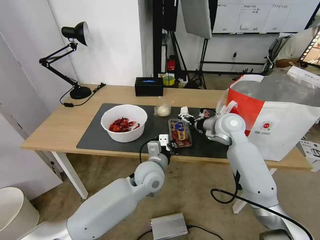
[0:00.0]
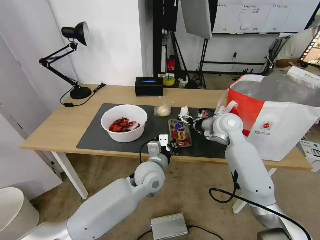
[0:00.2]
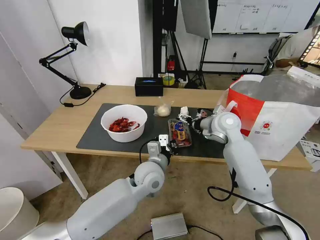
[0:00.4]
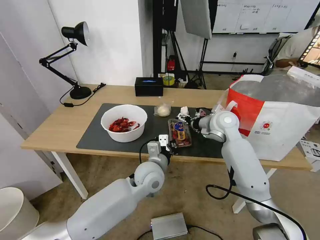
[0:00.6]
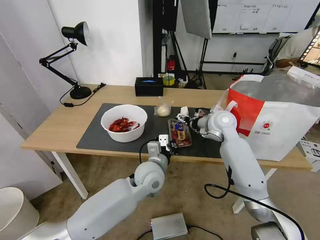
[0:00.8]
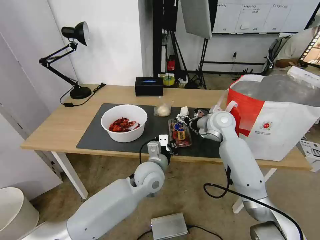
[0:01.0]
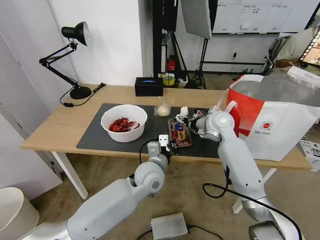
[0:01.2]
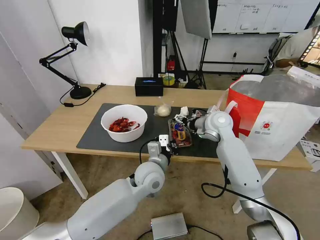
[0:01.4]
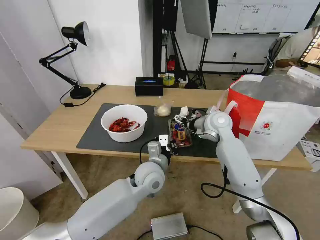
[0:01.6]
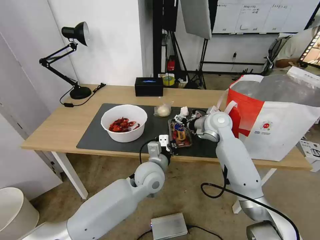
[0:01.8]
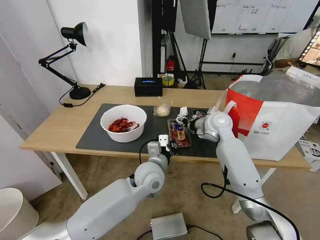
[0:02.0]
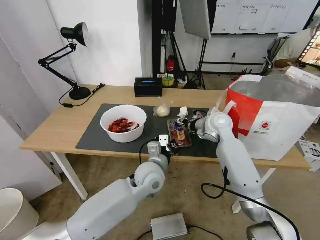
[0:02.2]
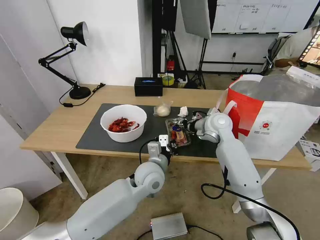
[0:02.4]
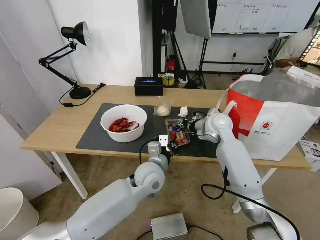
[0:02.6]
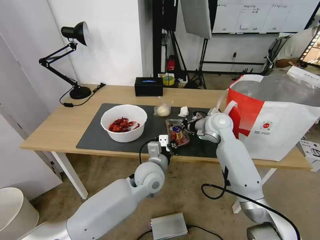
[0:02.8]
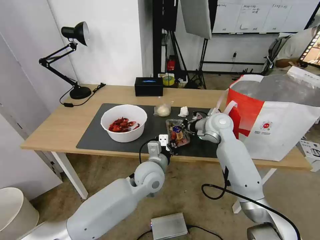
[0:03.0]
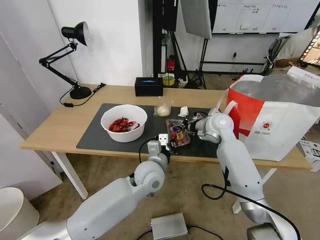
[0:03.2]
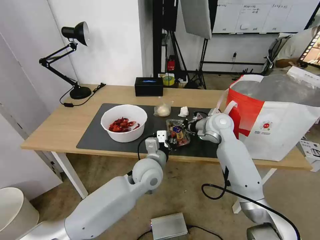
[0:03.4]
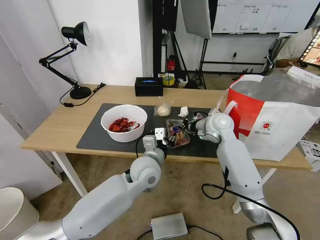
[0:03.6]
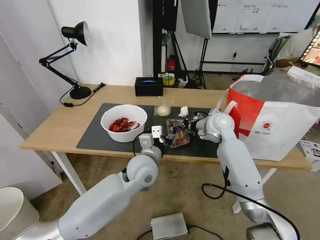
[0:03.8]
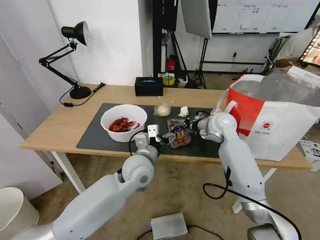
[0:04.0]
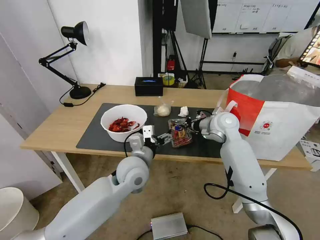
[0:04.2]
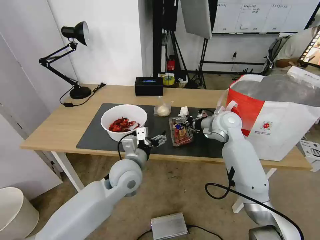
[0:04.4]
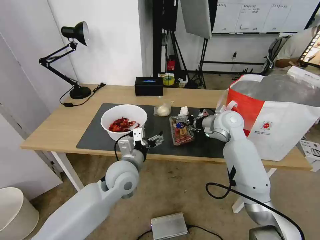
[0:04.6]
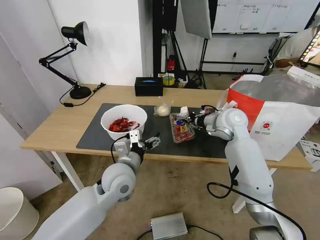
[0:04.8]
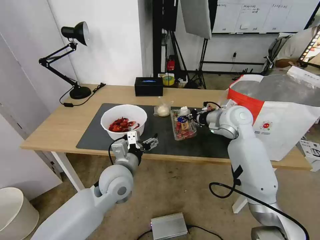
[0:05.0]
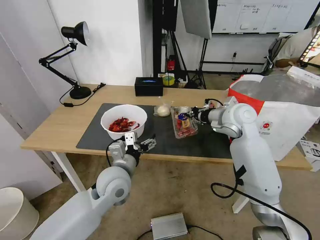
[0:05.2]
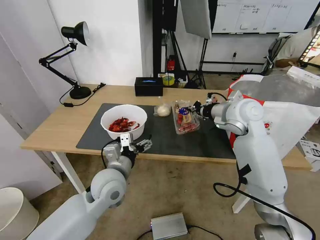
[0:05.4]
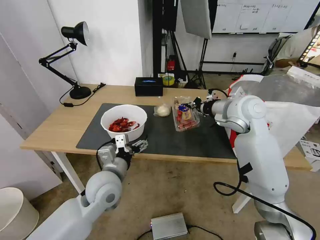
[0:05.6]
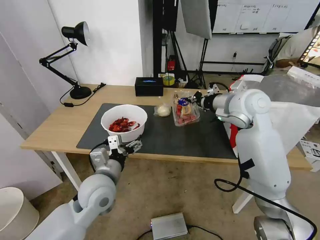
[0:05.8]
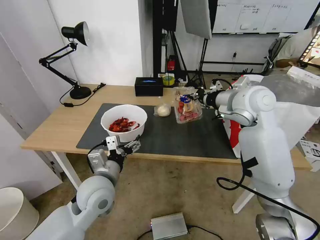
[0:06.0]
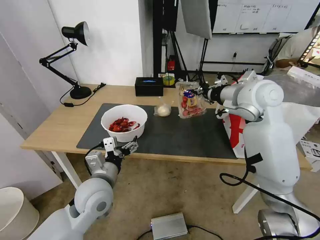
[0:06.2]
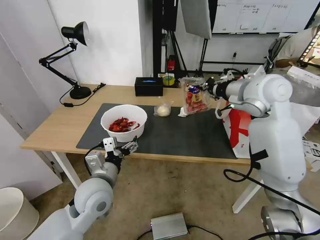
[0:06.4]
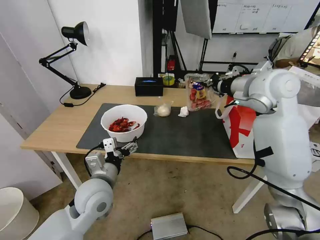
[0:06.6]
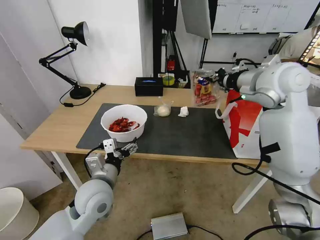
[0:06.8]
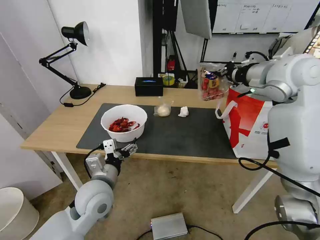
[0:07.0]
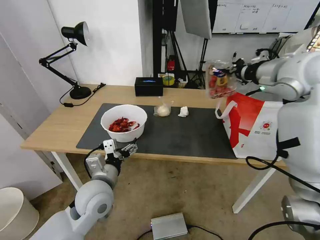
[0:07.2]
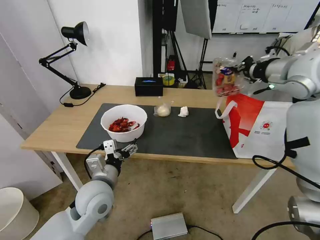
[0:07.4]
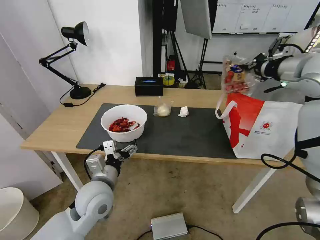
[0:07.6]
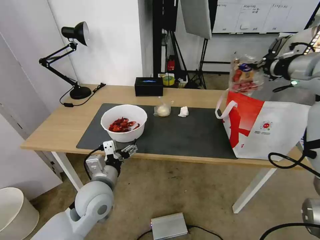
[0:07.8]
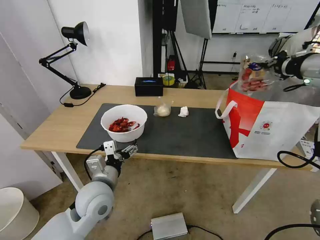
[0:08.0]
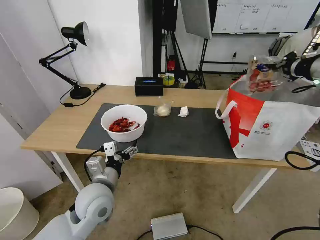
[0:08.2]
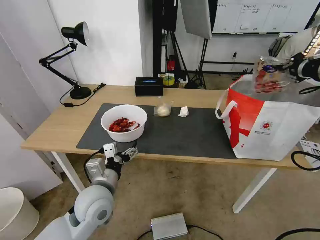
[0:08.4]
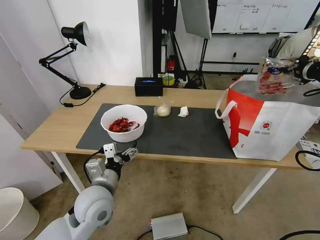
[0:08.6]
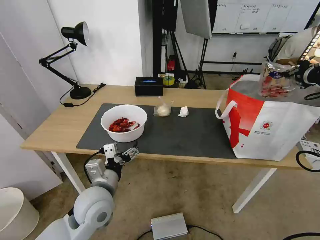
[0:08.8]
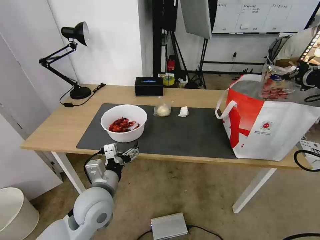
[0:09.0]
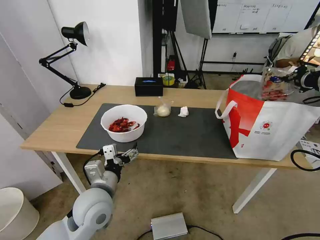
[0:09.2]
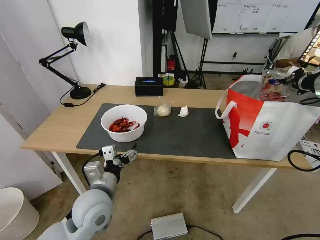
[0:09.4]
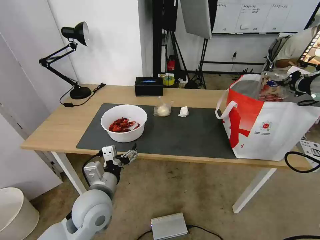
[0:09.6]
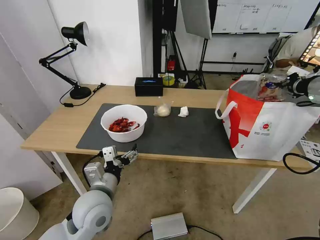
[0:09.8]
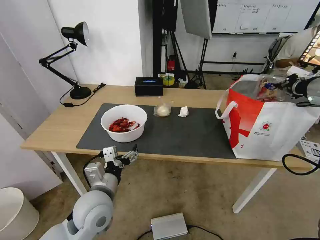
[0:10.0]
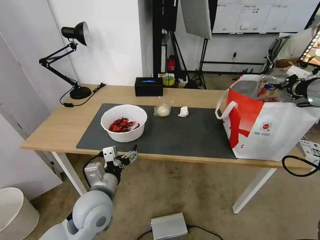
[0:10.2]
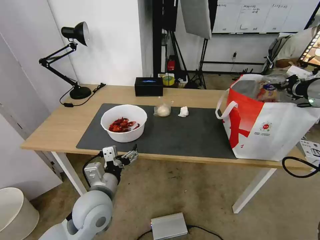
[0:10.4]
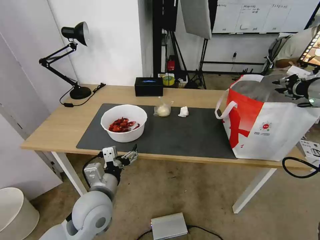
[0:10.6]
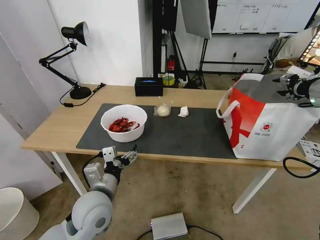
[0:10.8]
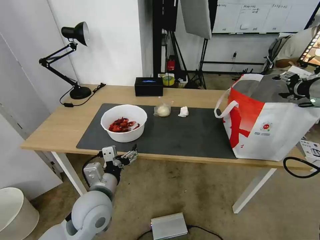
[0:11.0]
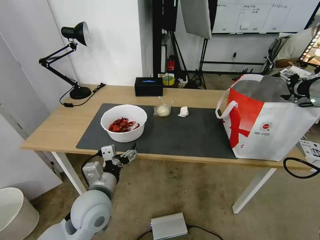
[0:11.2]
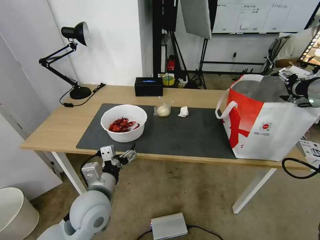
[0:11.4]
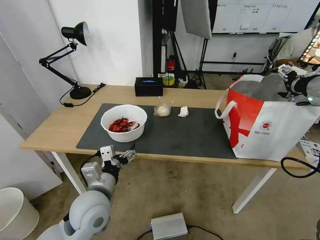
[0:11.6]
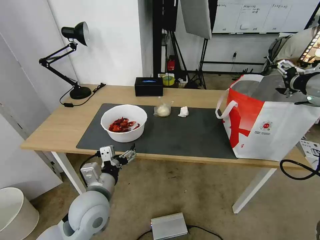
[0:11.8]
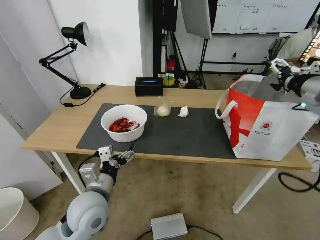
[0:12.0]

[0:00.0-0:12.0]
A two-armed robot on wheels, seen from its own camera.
Task of the whole recording: Pick up the trash from the table and place it into the takeout bag.
0:00.0 to 0:01.6: The grippers move only a little.
0:01.6 to 0:03.0: The right gripper closes its fingers.
0:03.0 to 0:04.4: The left gripper shifts about 5 cm to the left, and opens up.
0:04.4 to 0:06.0: The left gripper heads to the left and backward, covering roughly 10 cm, while the right gripper goes approximately 15 cm upward.
0:06.0 to 0:07.6: The right gripper moves to the right and upward, about 15 cm.
0:07.6 to 0:09.0: The right gripper shifts roughly 10 cm to the right.
0:09.0 to 0:10.4: There are only small adjustments of the grippers.
0:10.4 to 0:12.0: The right gripper ends up approximately 5 cm from where it was, and opens up.

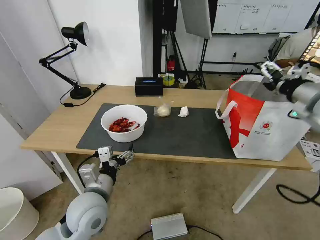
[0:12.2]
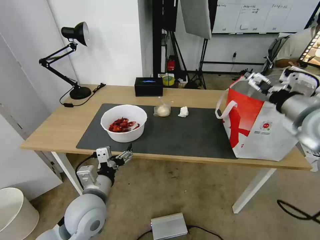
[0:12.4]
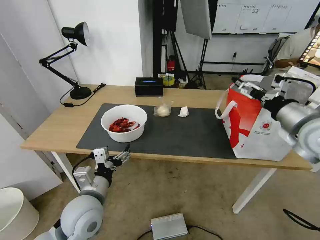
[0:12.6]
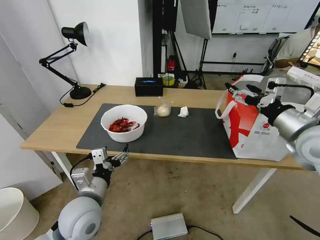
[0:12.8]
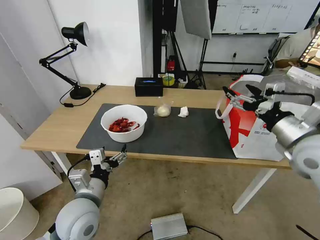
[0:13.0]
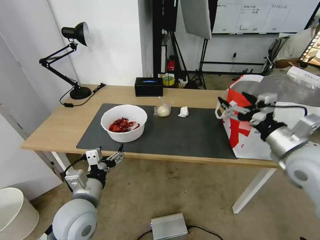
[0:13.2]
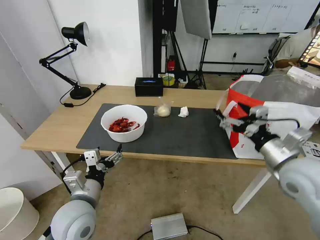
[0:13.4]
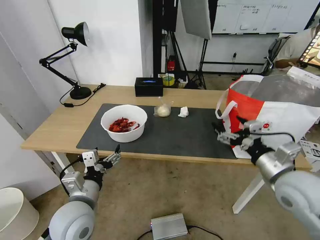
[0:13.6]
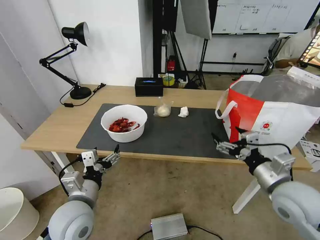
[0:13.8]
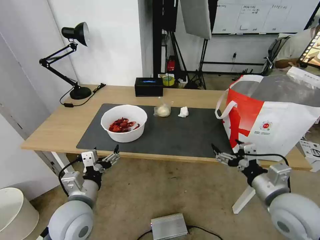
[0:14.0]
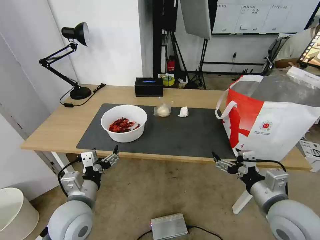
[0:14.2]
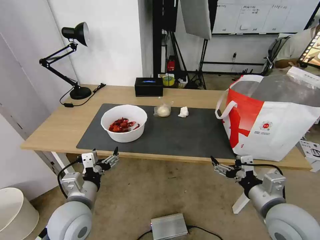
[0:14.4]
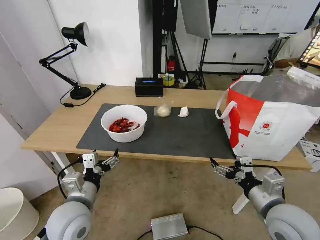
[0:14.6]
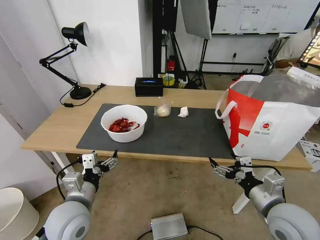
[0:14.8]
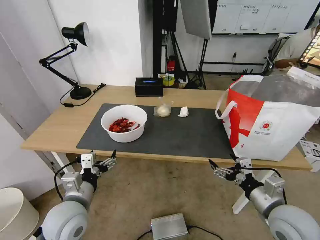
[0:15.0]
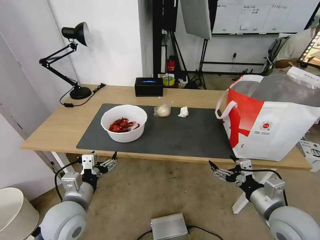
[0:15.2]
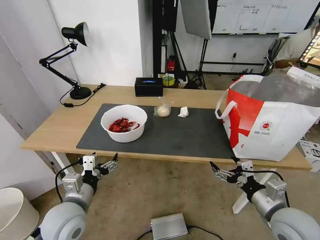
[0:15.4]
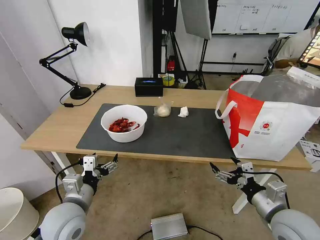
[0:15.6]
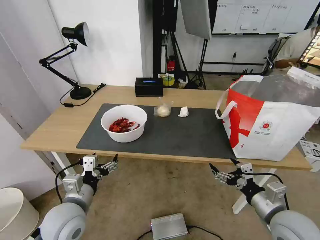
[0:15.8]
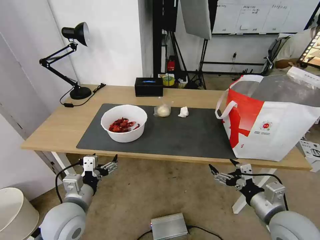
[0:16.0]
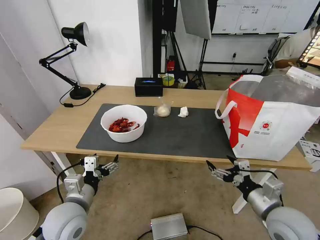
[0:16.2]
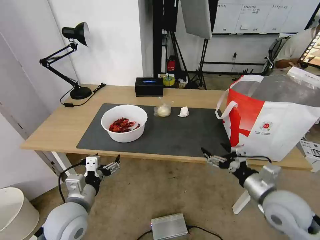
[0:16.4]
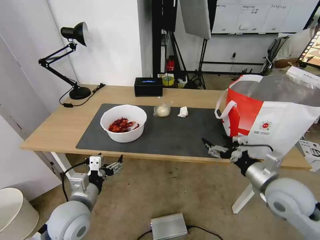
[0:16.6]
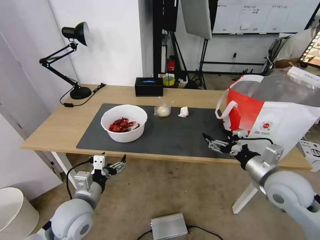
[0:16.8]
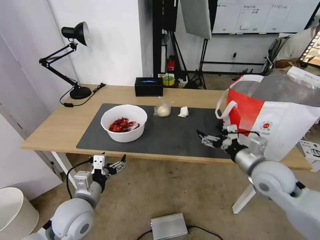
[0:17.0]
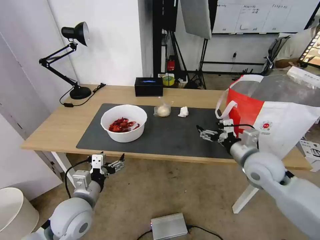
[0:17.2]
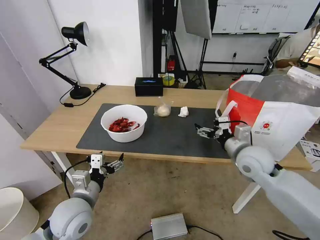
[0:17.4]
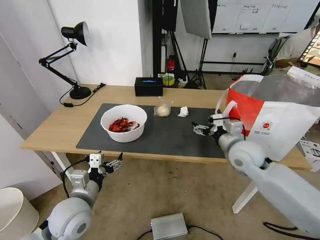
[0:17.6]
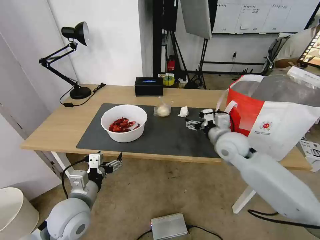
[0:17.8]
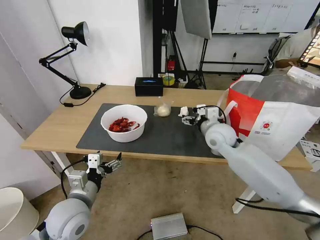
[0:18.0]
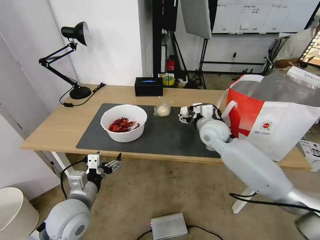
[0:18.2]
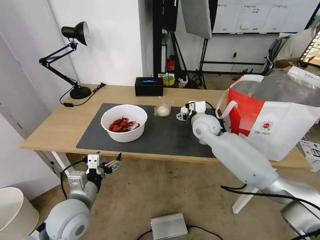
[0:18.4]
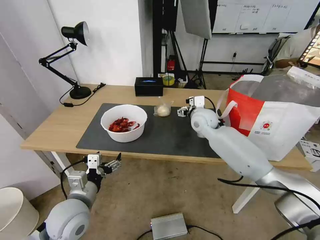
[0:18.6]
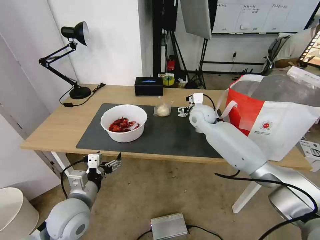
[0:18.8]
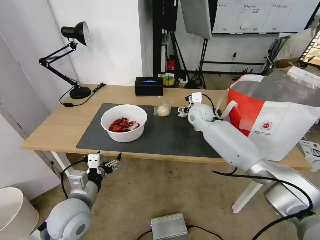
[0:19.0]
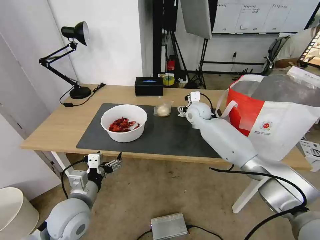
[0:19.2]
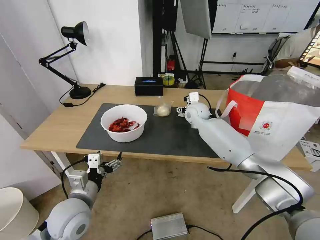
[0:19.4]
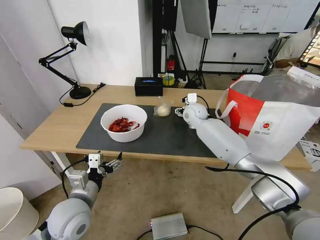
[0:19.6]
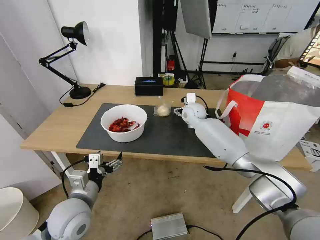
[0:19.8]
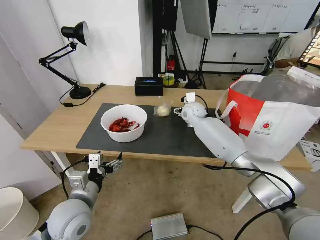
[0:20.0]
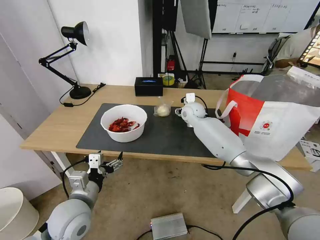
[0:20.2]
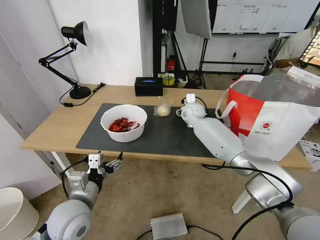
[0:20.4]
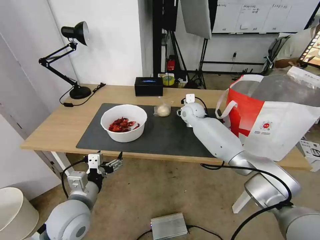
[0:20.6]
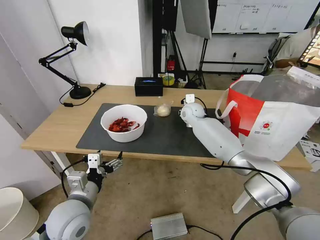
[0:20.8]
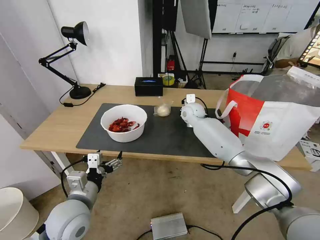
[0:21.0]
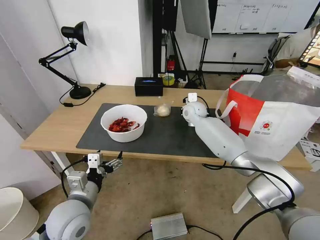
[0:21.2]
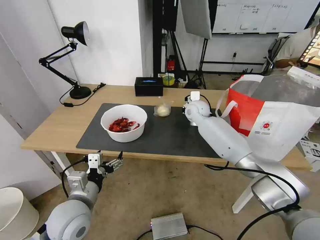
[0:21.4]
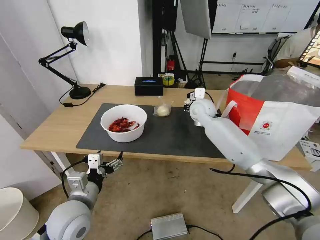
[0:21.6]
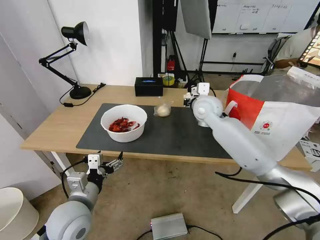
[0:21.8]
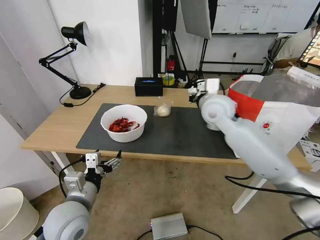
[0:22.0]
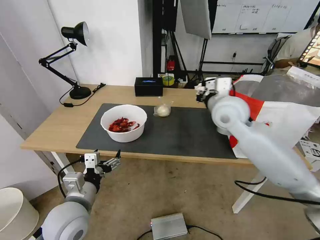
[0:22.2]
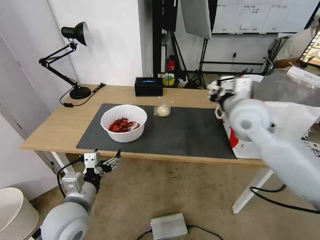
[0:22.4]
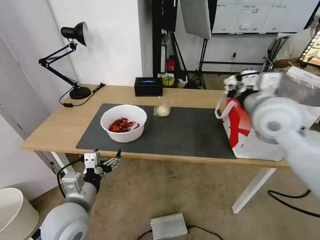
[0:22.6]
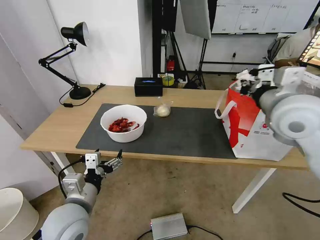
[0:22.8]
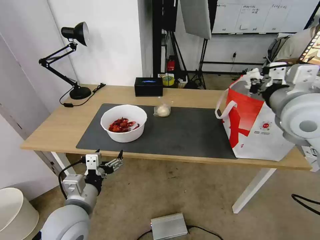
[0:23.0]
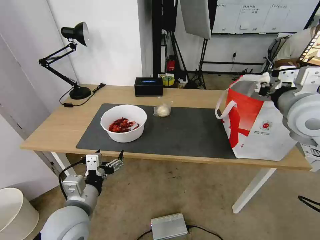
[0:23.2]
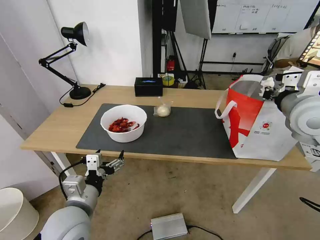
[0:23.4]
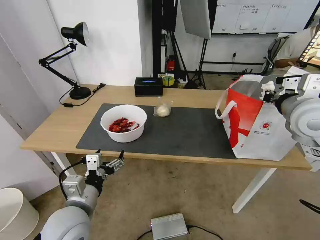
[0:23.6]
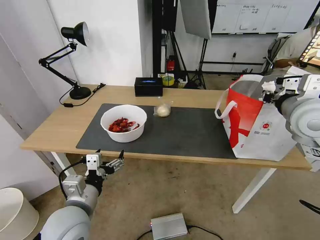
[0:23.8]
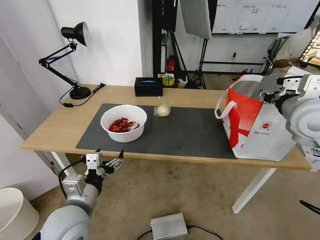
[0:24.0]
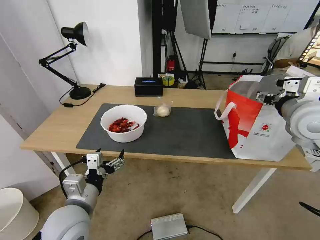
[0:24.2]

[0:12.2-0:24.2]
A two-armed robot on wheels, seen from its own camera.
Task of the whole recording: Pick up the trash from the table and place it into the takeout bag.
0:12.2 to 0:13.8: The right gripper goes approximately 25 cm downward, backward and to the left.
0:13.8 to 0:15.2: The right gripper moves downward, roughly 5 cm.
0:15.2 to 0:16.6: The right gripper goes some 5 cm forward.
0:16.6 to 0:18.2: The right gripper heads forward and to the left, covering some 25 cm.
0:18.2 to 0:19.8: The right gripper goes roughly 10 cm forward.
0:19.8 to 0:21.2: The right gripper closes up.
0:21.2 to 0:22.6: The right gripper shifts some 30 cm backward, upward and to the right.
0:22.6 to 0:24.2: The right gripper shifts roughly 10 cm to the right, and opens.
